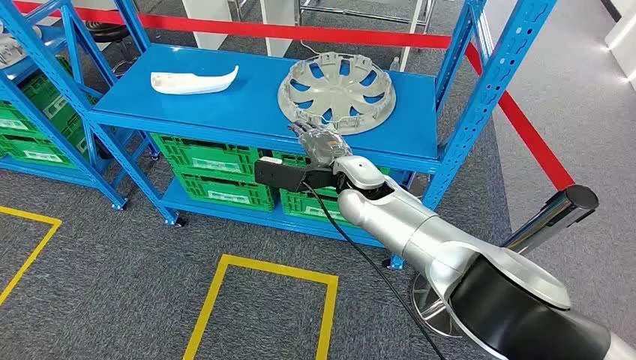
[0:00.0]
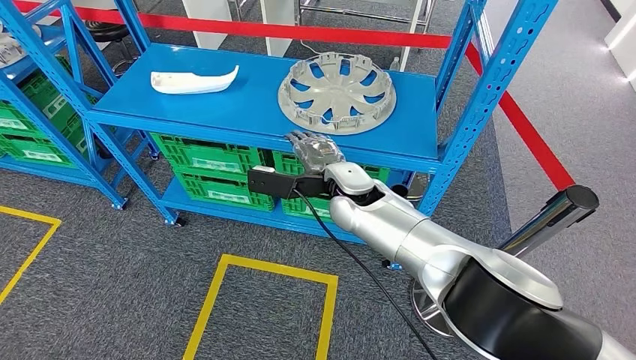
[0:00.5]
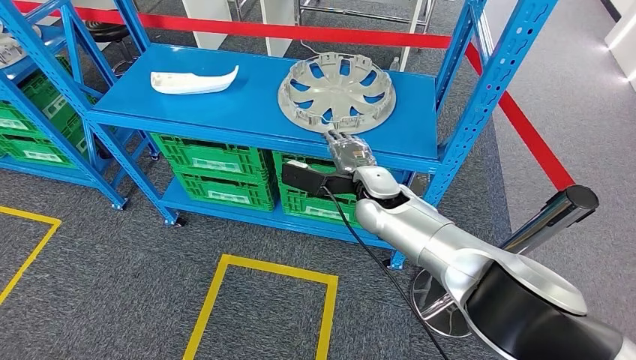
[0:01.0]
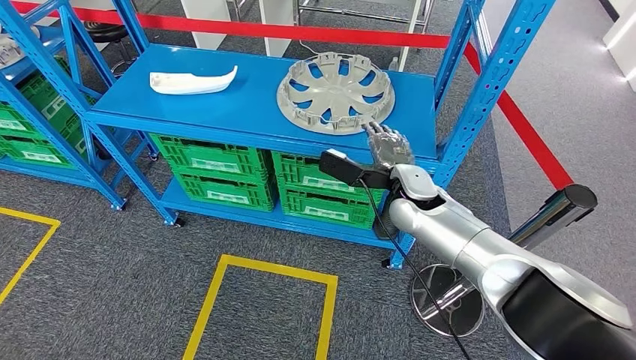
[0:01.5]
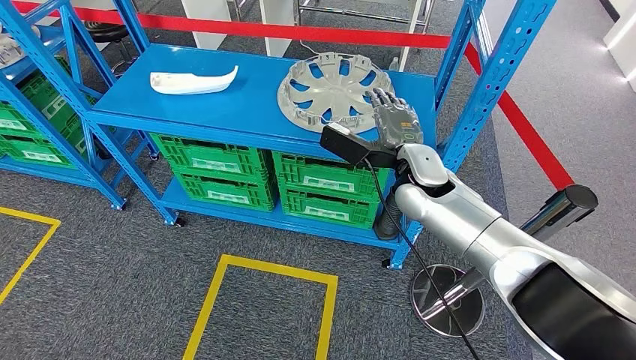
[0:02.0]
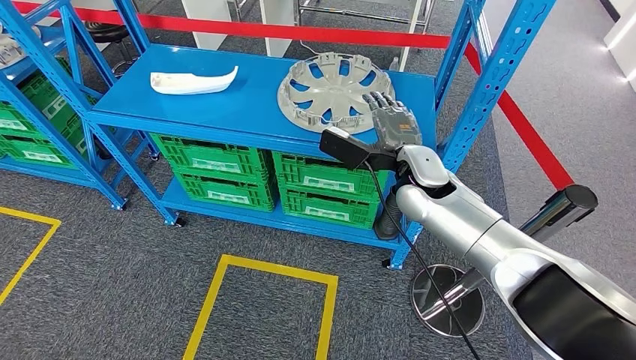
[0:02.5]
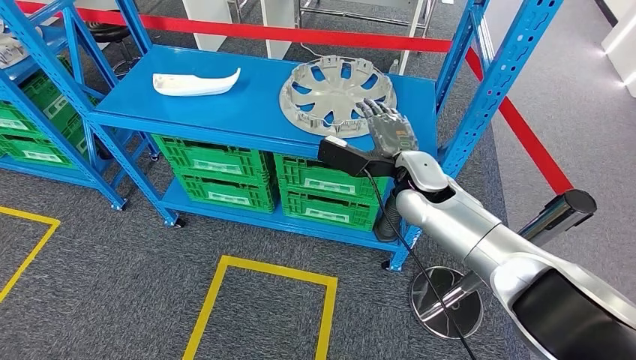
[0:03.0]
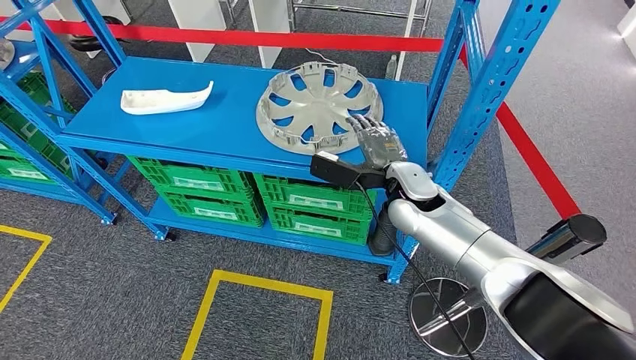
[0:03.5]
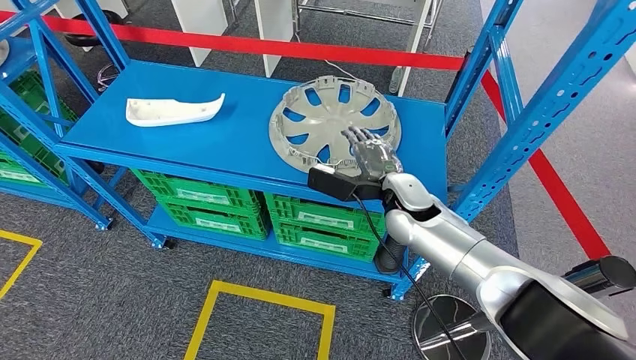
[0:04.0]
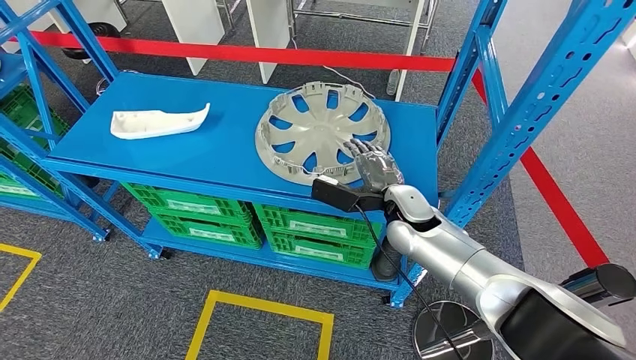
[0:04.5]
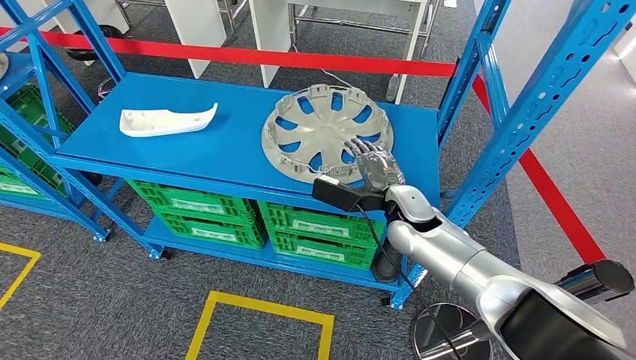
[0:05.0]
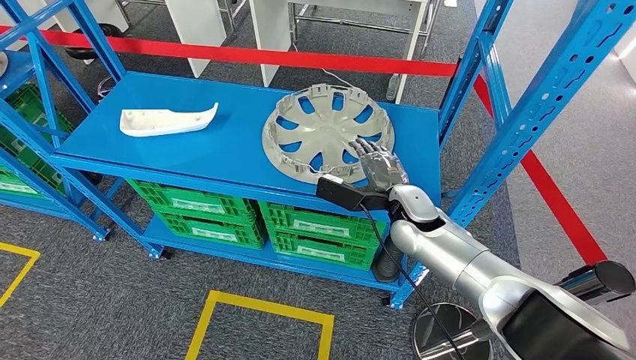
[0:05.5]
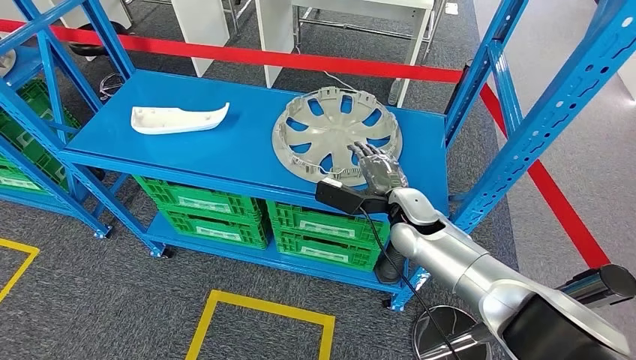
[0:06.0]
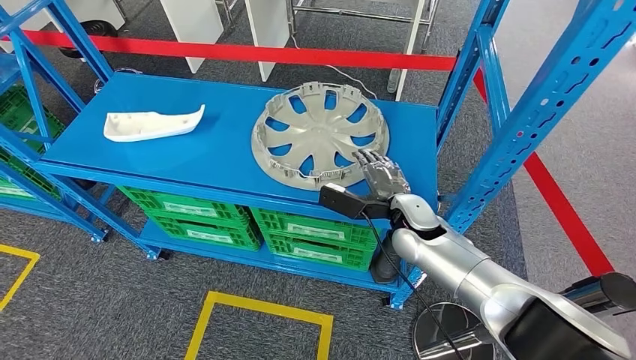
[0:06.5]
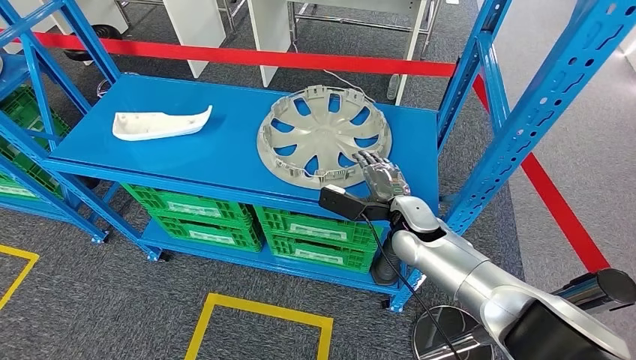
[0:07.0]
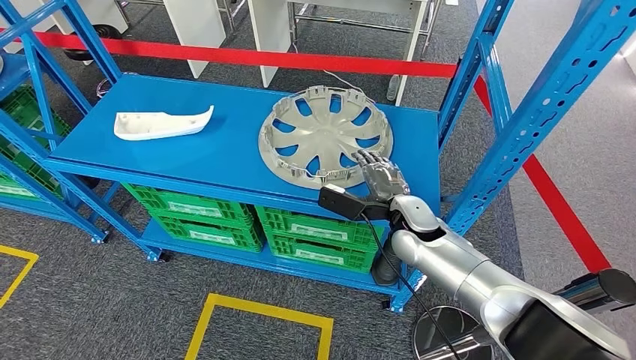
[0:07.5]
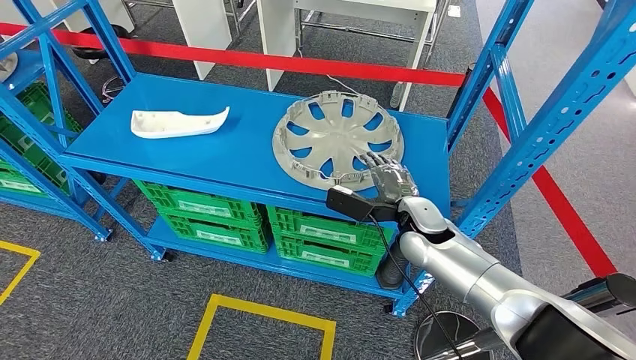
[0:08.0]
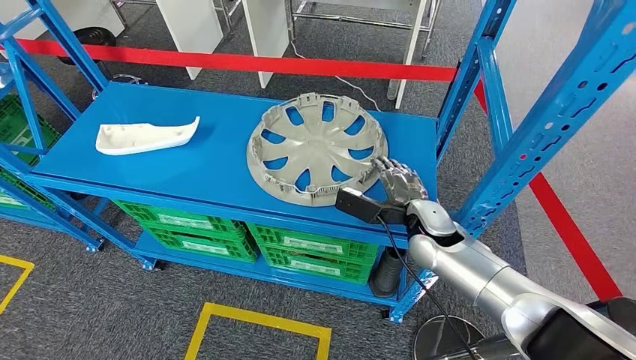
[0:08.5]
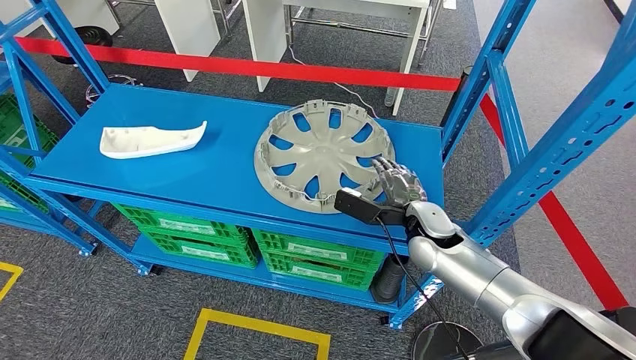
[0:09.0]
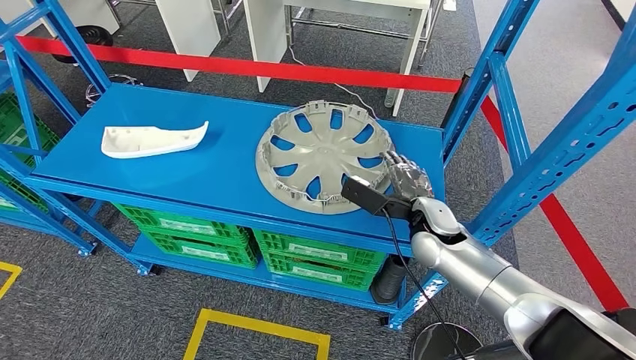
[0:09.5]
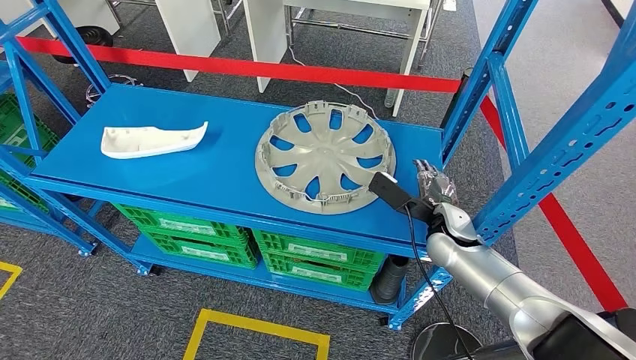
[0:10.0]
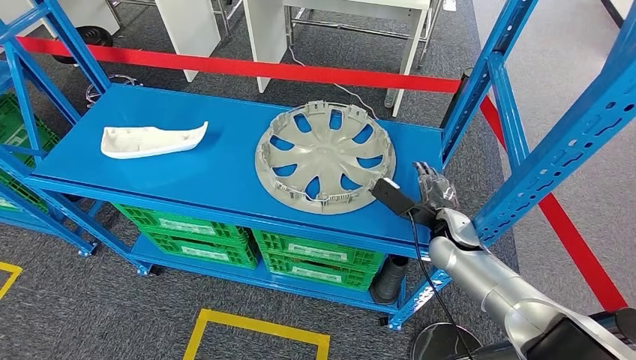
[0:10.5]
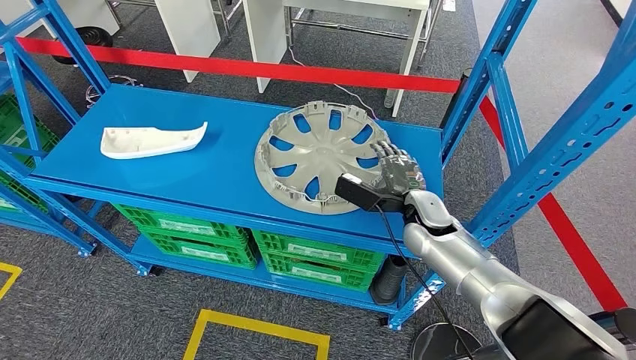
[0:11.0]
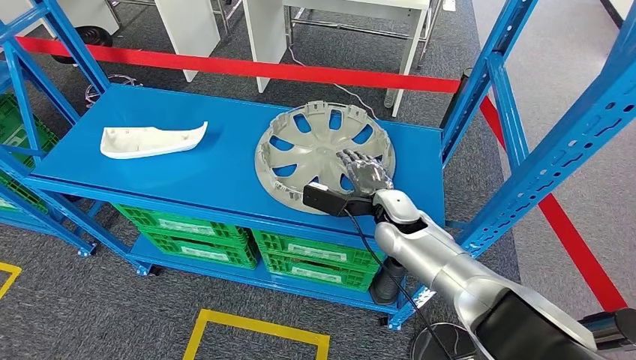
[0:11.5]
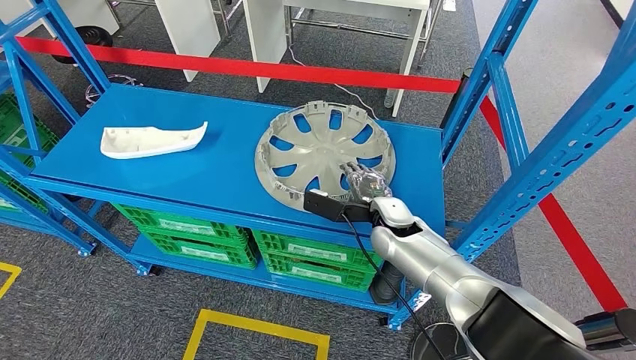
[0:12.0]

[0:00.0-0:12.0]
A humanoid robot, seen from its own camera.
0:10.0 to 0:12.0: The right hand heads to the left, covering about 10 cm.

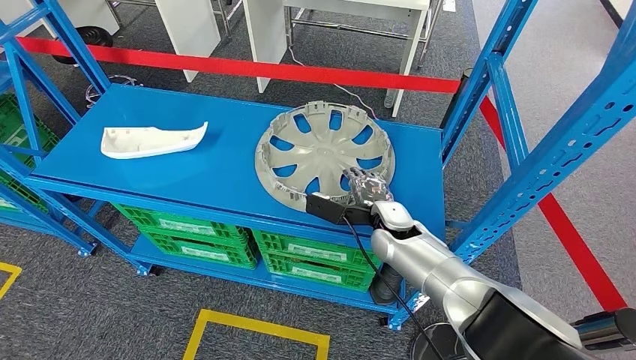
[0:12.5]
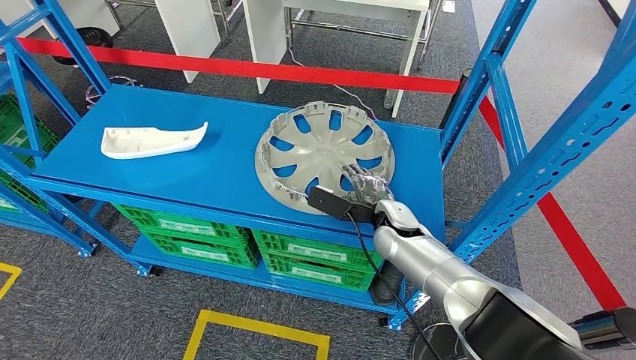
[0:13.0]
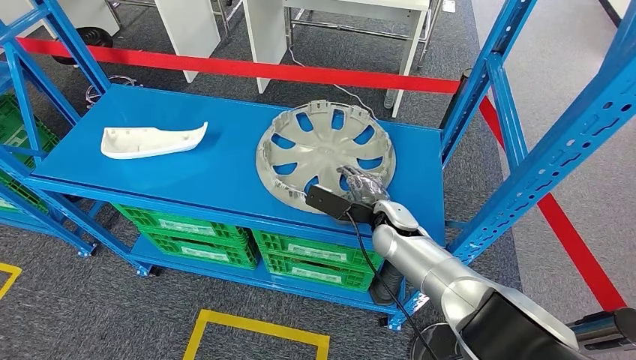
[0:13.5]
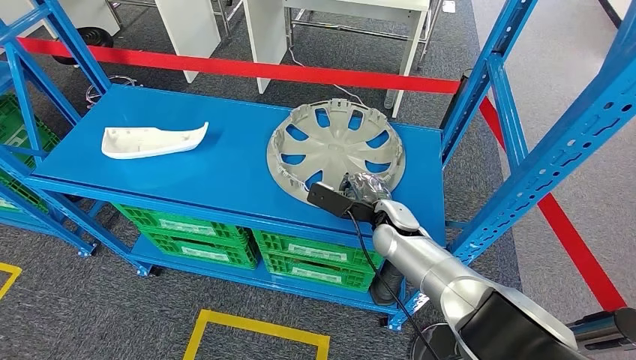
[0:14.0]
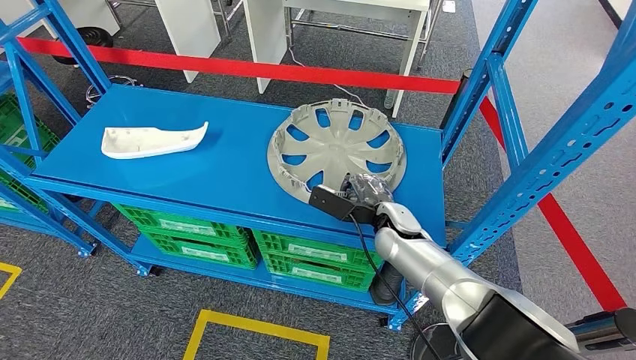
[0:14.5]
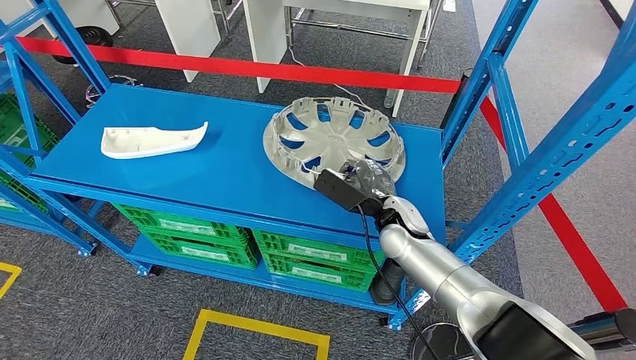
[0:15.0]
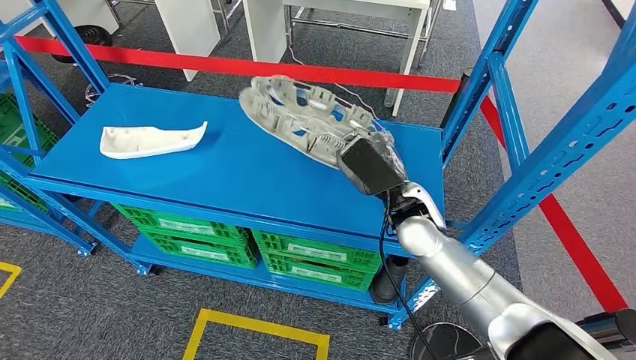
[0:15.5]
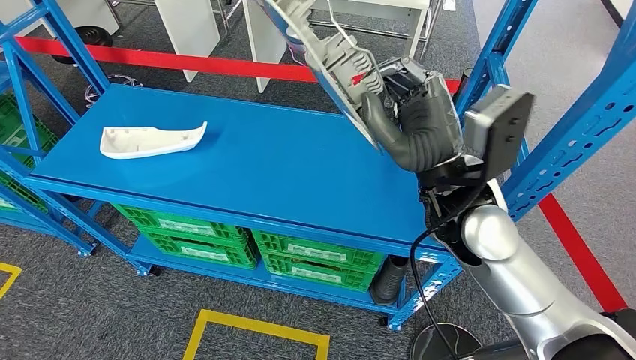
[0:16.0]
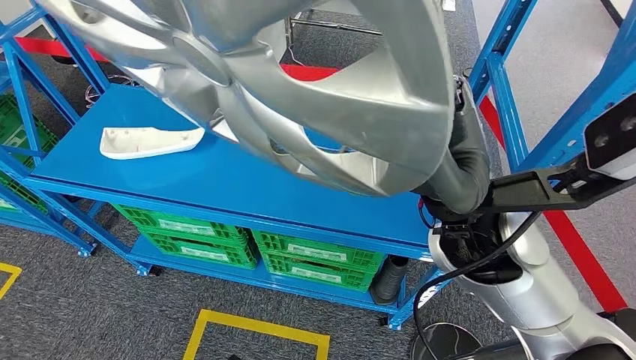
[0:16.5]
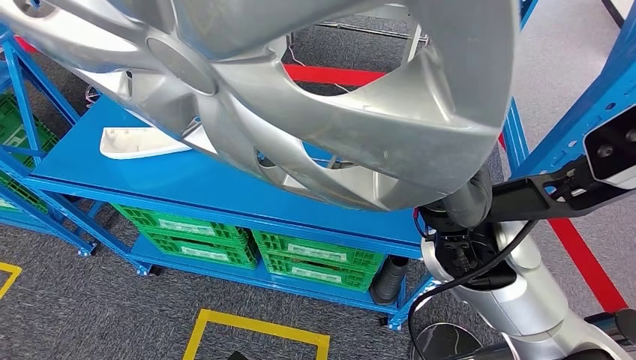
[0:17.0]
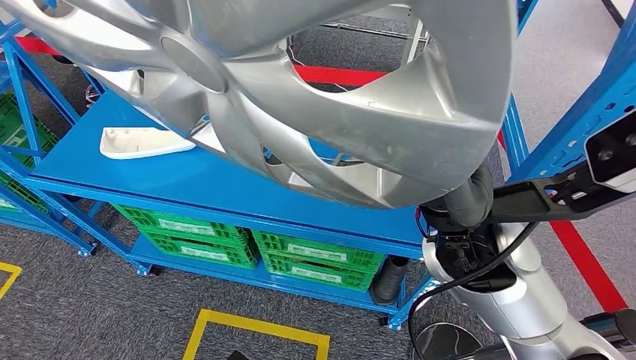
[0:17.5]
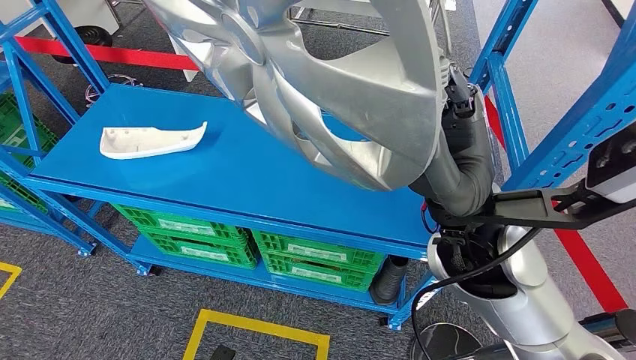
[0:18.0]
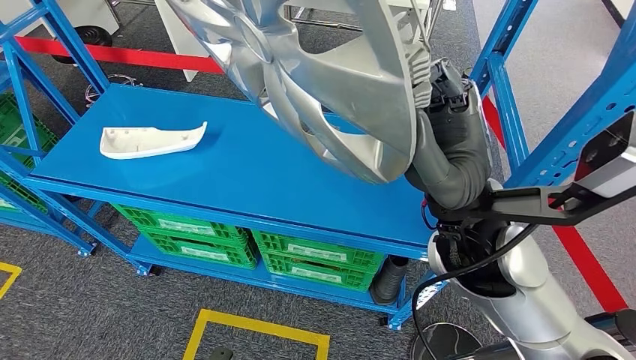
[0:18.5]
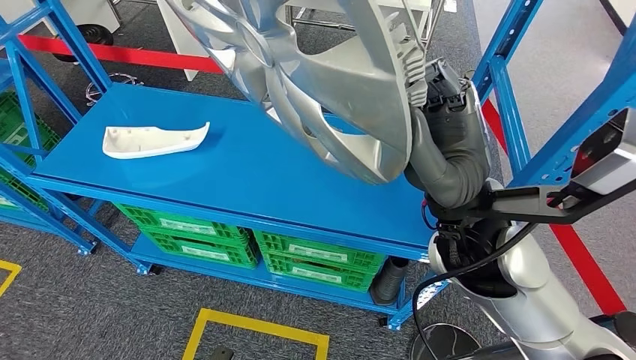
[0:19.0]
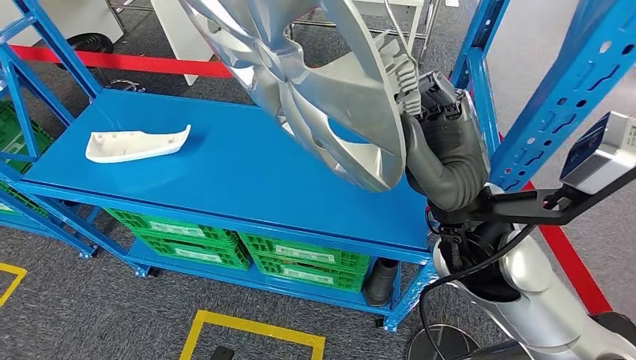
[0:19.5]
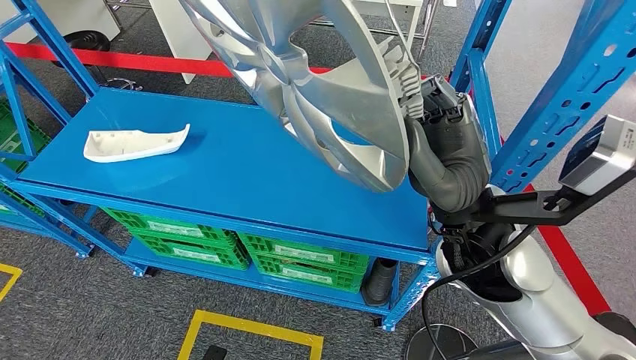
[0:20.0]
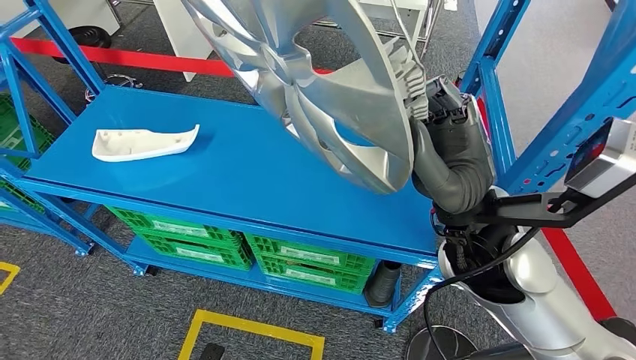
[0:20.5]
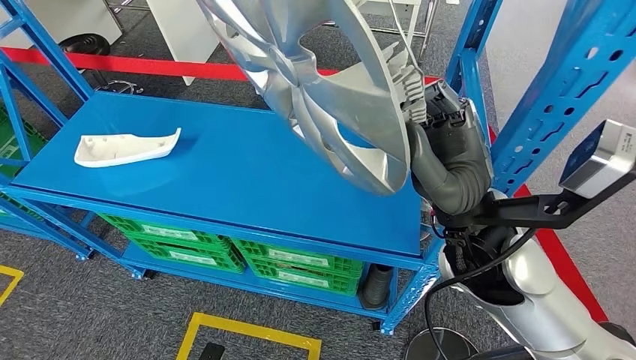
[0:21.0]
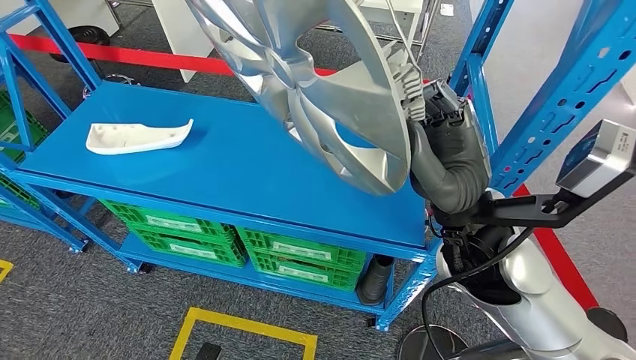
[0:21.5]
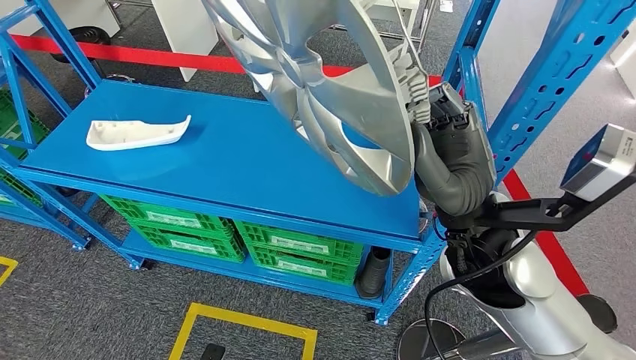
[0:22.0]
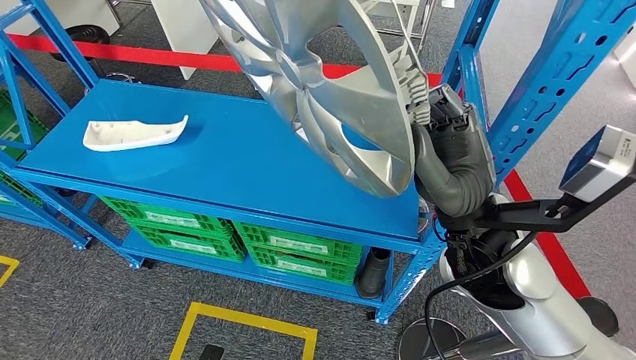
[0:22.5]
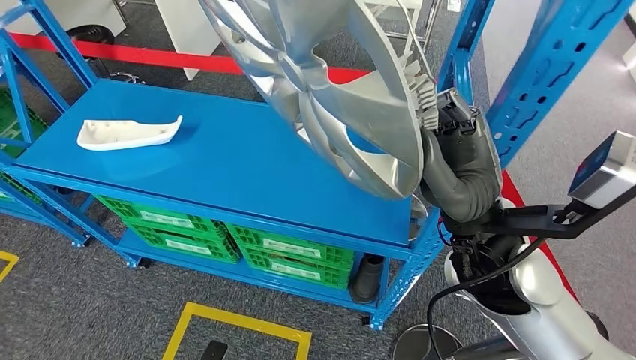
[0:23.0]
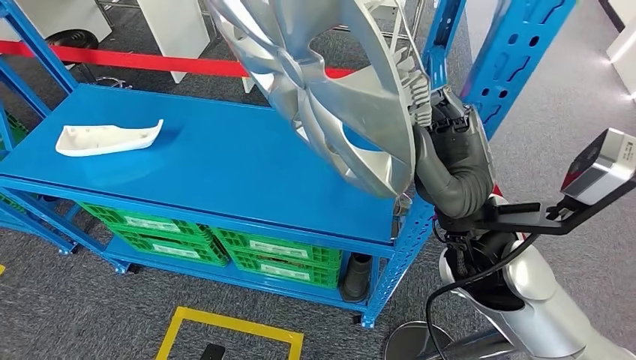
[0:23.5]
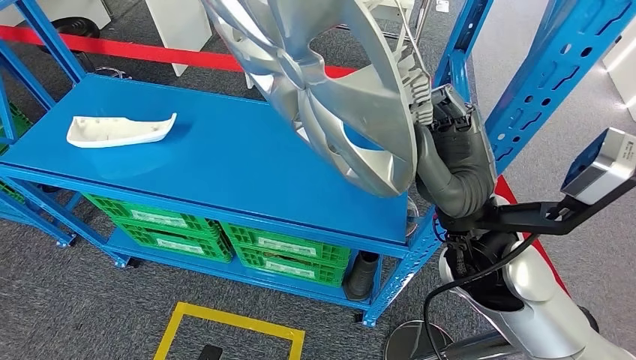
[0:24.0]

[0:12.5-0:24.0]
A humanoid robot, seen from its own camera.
Step, 0:12.5 to 0:16.5: Pick up the large material from the shelf.
0:12.5 to 0:14.5: There are only small adjustments of the hands.
